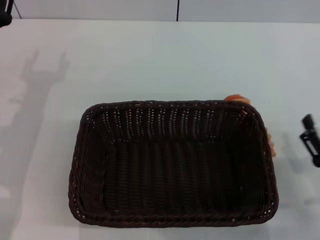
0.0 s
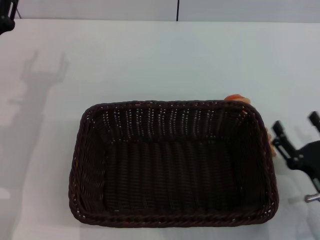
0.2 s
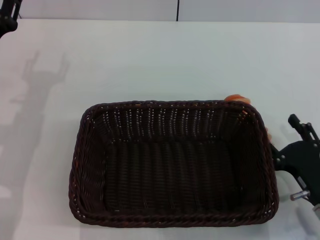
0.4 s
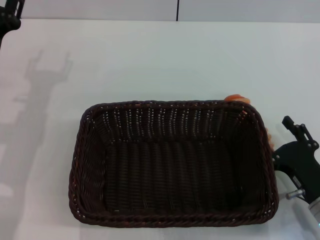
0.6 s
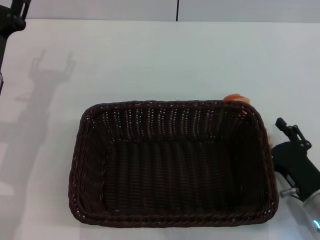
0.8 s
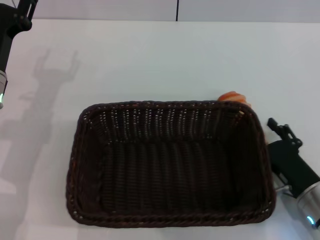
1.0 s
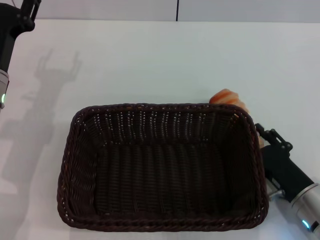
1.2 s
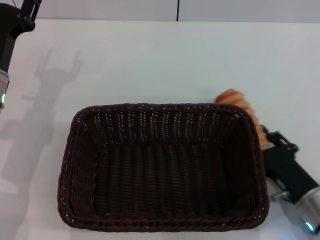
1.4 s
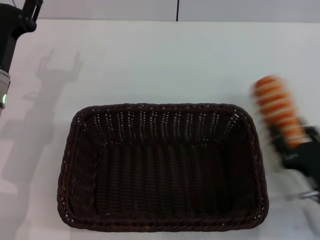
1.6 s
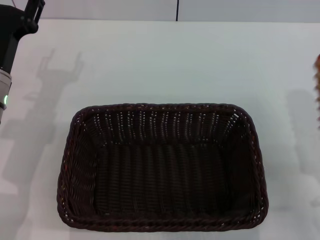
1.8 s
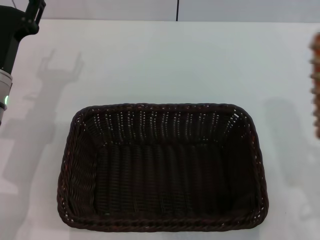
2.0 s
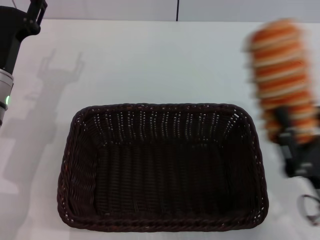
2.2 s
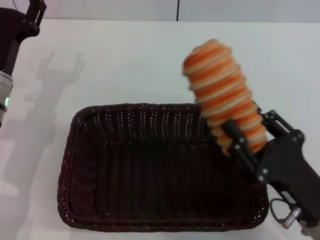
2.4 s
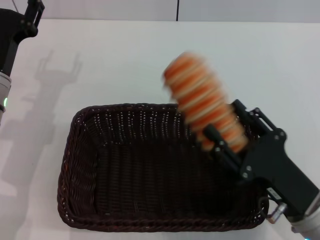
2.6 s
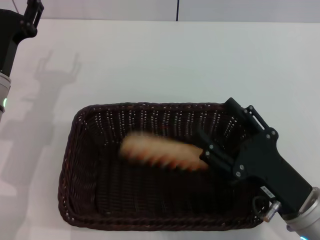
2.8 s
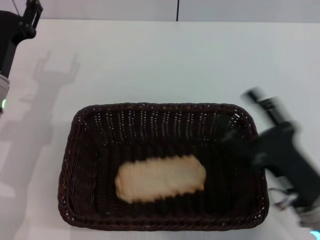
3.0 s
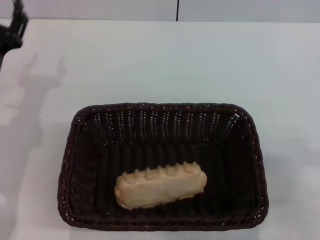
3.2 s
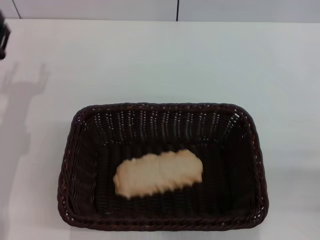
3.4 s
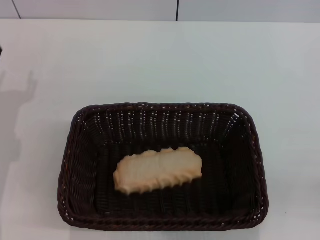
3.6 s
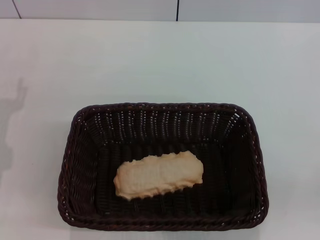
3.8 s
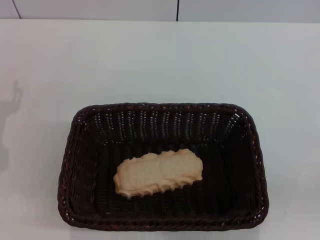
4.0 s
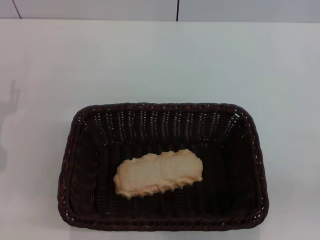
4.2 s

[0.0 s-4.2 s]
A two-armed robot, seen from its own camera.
Step, 1.8 to 2.6 s: Place the long bread into the dark basket with the right gripper.
0.0 to 1.4 s: The right gripper changes place by some 5 cm, and closes up.
1.4 to 2.8 s: The right gripper heads upward, covering some 5 cm, and closes, then opens again.
2.8 to 4.2 s: The right gripper heads to the right and backward, covering approximately 15 cm, while the left gripper goes roughly 10 cm to the left and backward.

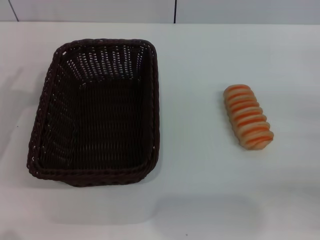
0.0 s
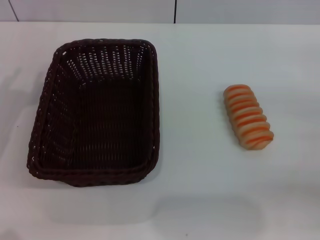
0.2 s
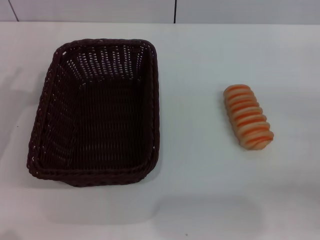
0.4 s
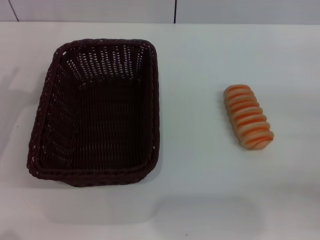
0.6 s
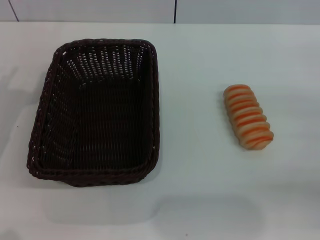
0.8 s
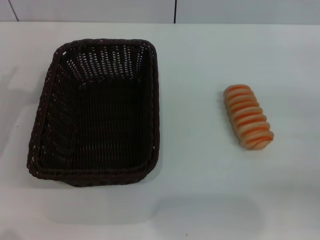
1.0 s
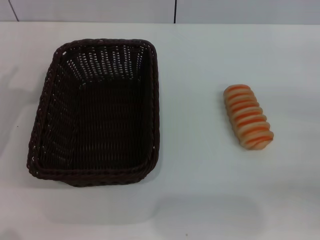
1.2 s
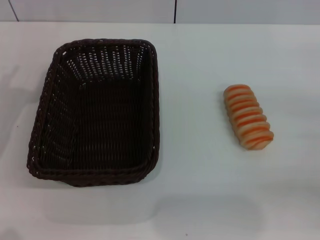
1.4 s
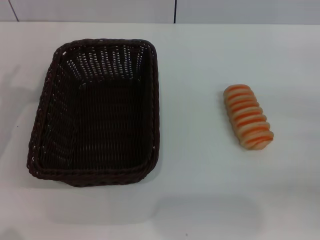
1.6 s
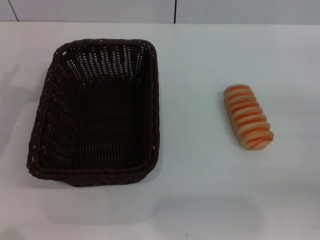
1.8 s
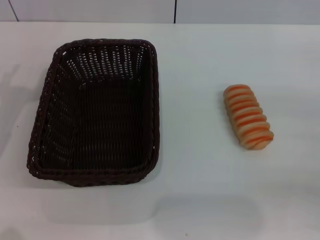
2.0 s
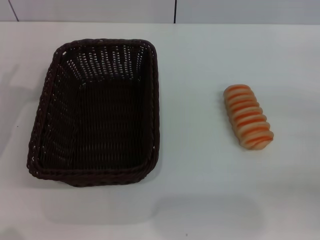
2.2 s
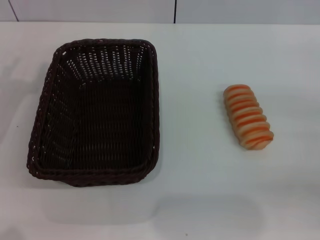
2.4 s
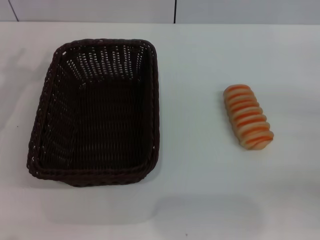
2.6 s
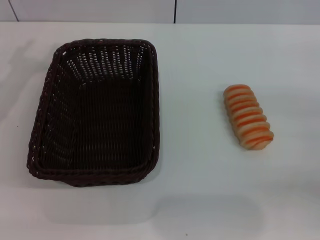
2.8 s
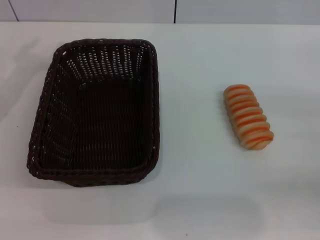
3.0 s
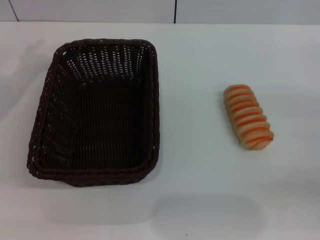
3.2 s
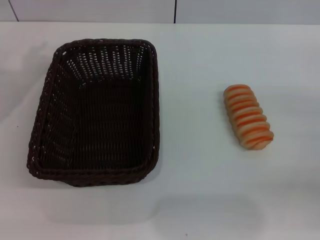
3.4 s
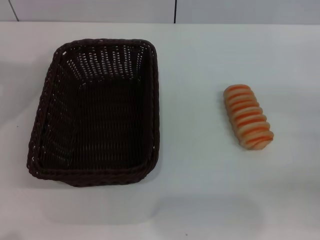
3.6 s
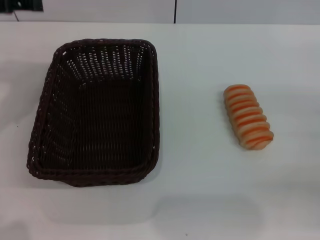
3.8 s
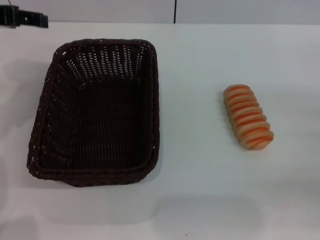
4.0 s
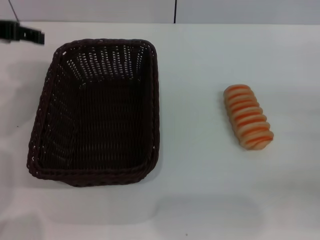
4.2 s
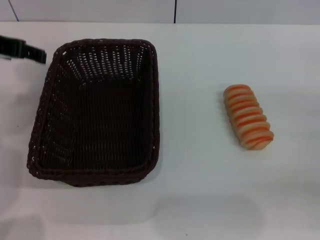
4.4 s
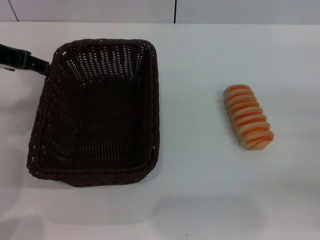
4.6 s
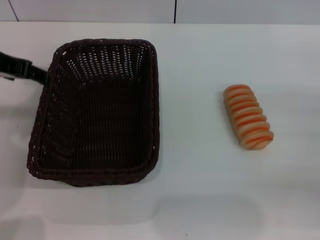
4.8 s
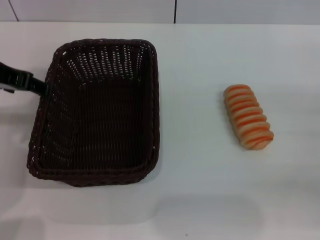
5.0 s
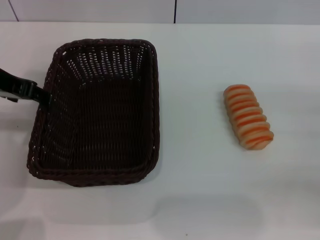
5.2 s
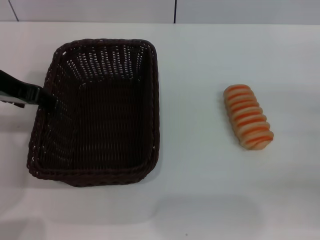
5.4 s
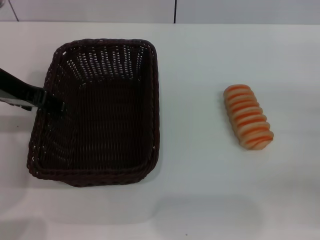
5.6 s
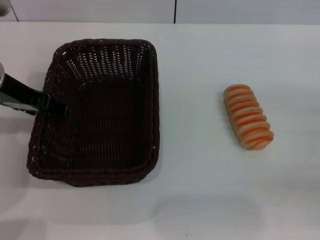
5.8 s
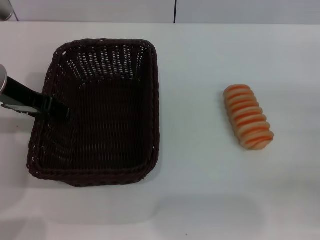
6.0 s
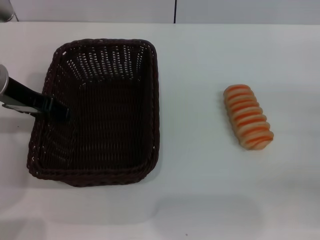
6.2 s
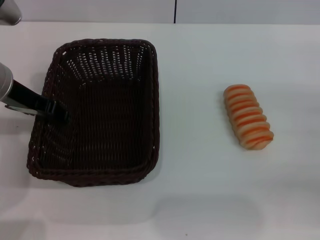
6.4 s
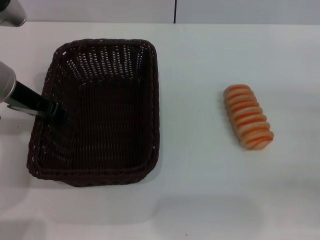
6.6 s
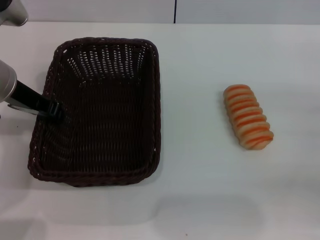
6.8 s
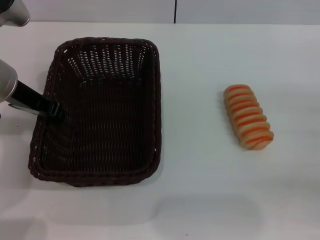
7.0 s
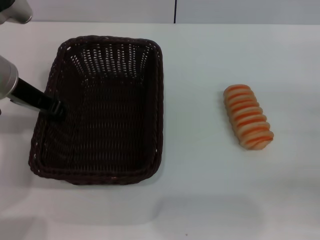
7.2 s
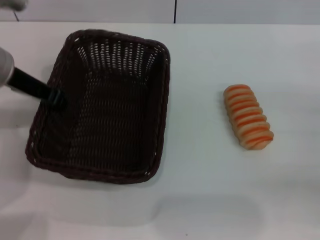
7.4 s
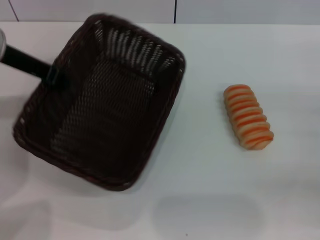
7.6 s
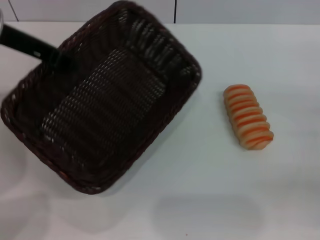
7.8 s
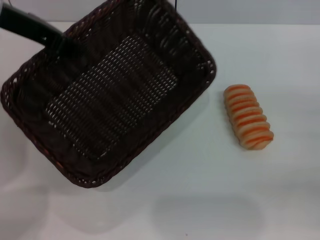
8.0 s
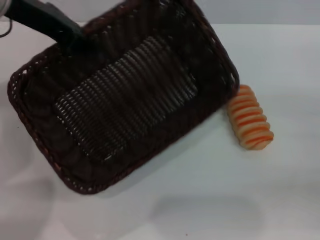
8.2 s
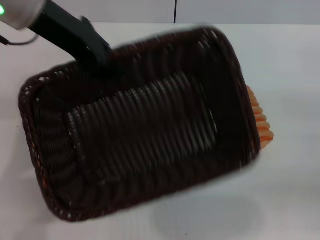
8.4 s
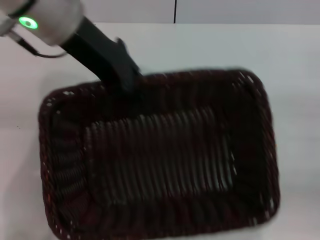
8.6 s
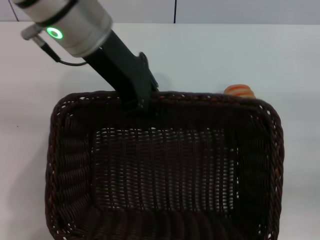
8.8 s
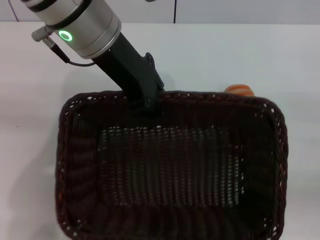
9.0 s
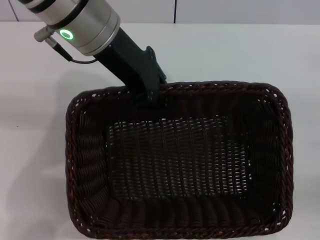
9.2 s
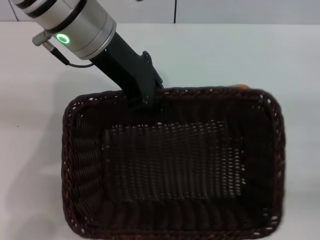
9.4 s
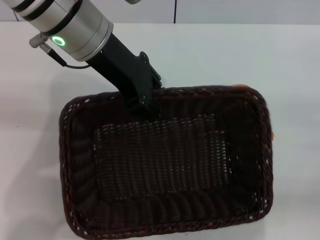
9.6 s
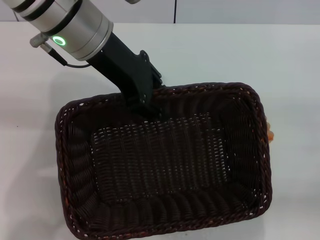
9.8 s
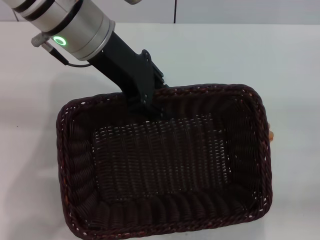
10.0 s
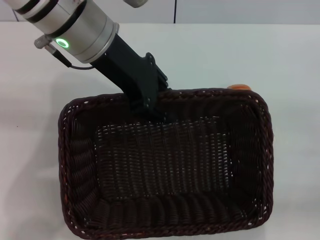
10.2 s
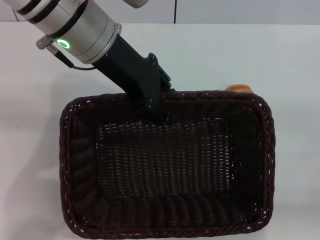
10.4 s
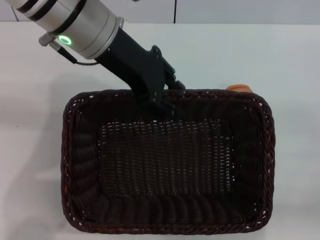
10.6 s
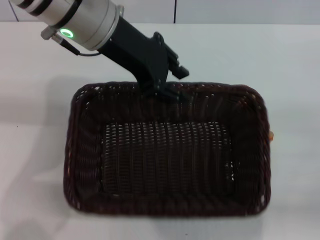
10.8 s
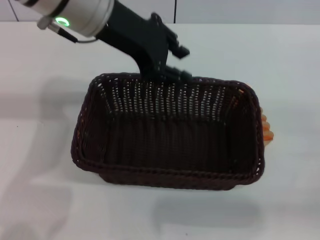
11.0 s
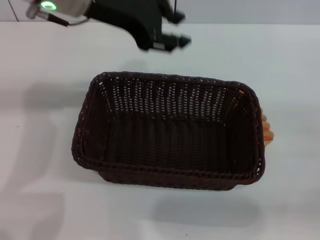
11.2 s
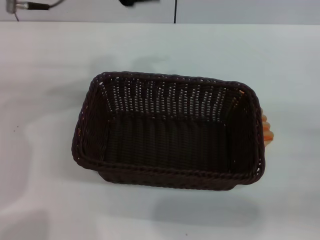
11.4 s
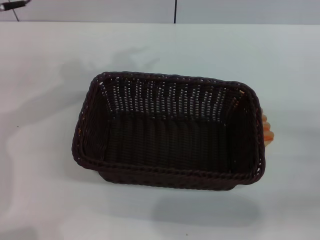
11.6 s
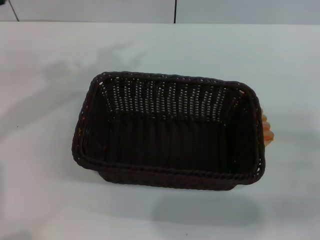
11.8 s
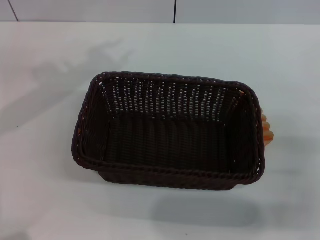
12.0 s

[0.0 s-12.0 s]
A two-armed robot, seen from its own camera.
Step, 0.0 to 6.8 s: Grasp the basket with the left gripper.
Step, 7.2 to 11.2 s: Place the basket in the center of the table with the left gripper.
0.0 to 1.6 s: Both grippers stay put.
3.0 to 4.4 s: The left gripper goes some 10 cm to the right and upward.
4.4 to 6.0 s: The left gripper travels downward by about 5 cm.
6.0 to 7.6 s: The left gripper closes up.
7.6 to 9.0 s: The left gripper goes about 15 cm to the right.
9.0 to 10.4 s: The left gripper opens up.
10.4 to 12.0 s: The right gripper shifts roughly 10 cm to the left; the left gripper shifts about 15 cm to the left.

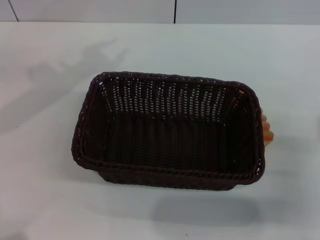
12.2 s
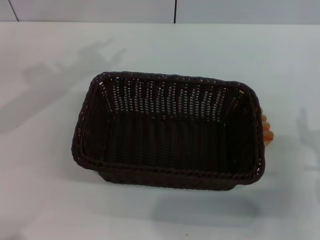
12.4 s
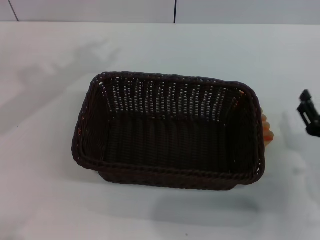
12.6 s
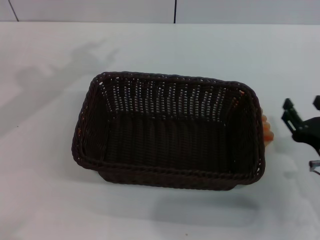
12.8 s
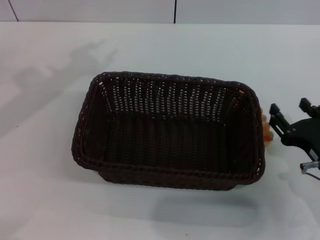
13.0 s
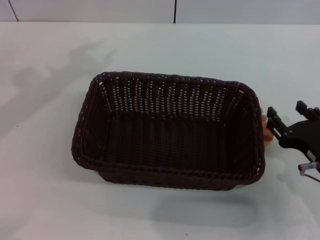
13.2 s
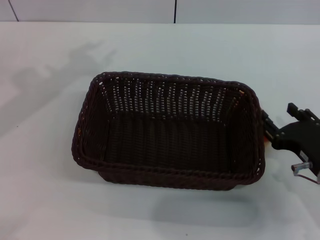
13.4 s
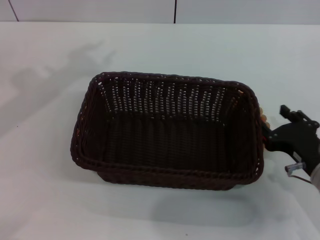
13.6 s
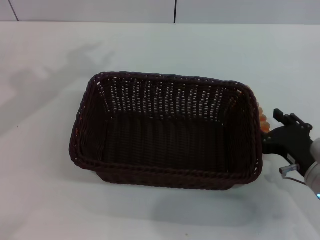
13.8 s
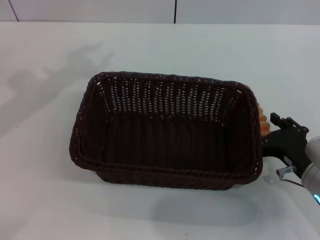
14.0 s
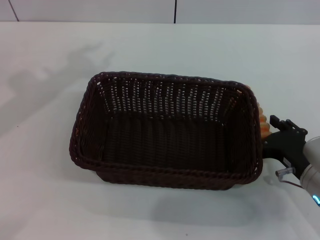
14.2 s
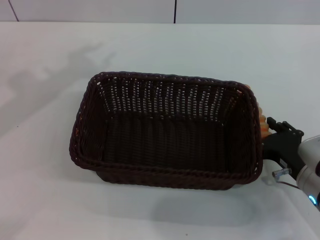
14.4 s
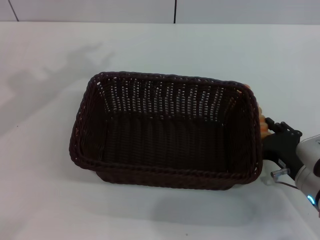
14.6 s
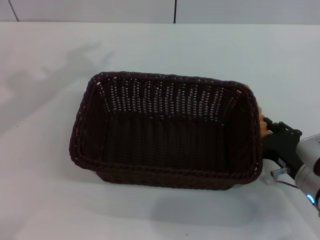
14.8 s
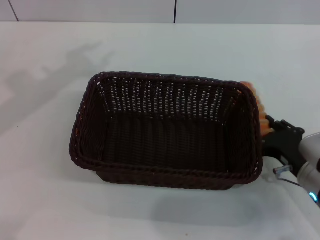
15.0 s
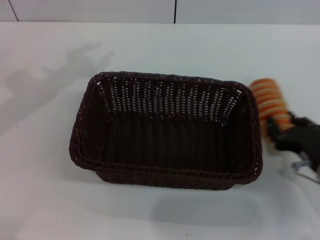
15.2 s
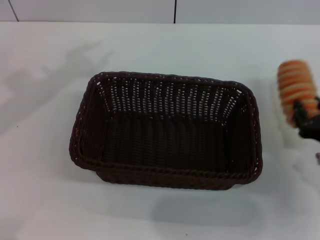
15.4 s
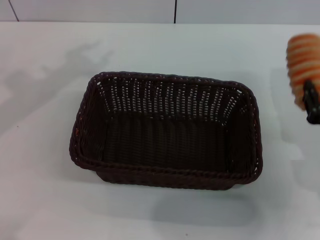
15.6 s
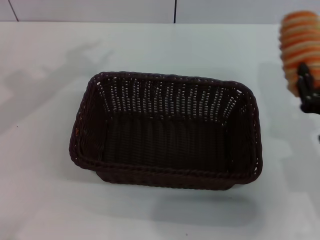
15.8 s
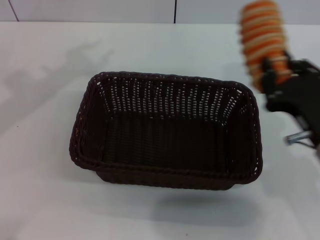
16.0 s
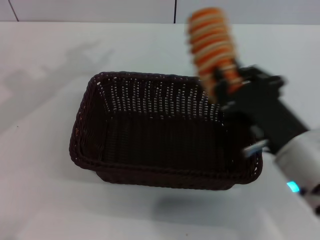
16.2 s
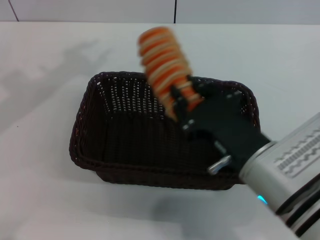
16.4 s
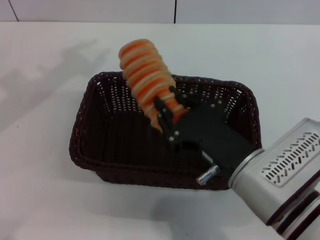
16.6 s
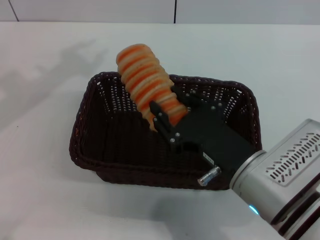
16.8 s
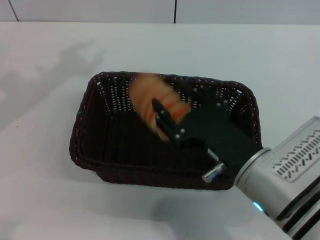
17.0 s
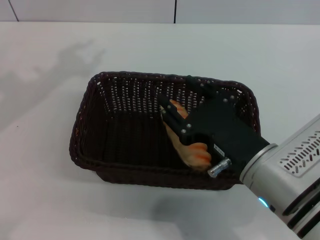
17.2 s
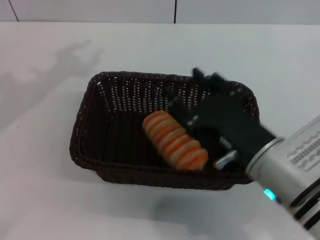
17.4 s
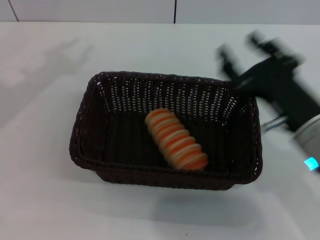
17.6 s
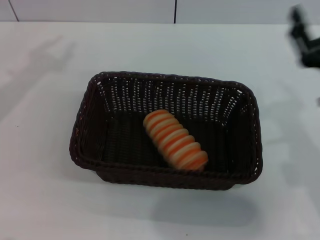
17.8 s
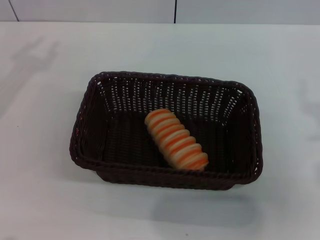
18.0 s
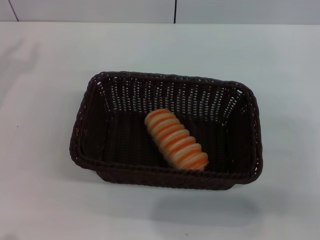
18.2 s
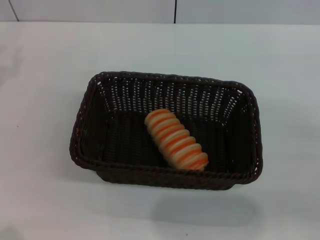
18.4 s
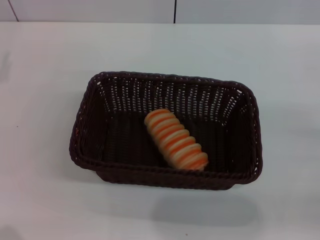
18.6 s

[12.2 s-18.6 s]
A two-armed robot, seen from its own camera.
Step, 12.2 to 14.6 s: Grasp the long bread with right gripper.
Step, 14.8 to 17.6 s: Place the long bread in the basket with right gripper.
12.2 to 13.8 s: The right gripper ends up about 5 cm from where it was.
13.8 to 15.4 s: The right gripper closes its fingers.
15.4 to 17.0 s: The right gripper is displaced to the left by about 15 cm, and closes and opens again.
17.0 to 18.6 s: The left gripper heads downward and to the left, covering approximately 15 cm; the right gripper shifts about 25 cm to the right.
